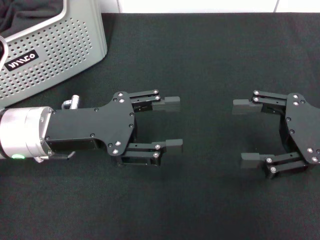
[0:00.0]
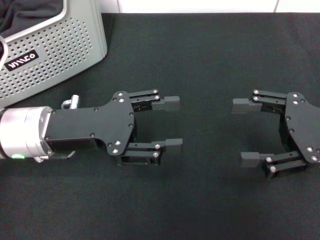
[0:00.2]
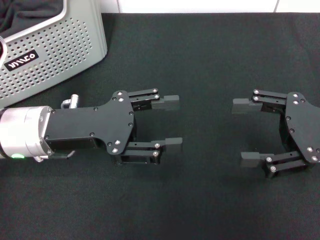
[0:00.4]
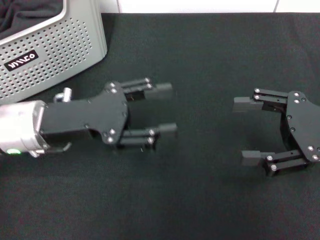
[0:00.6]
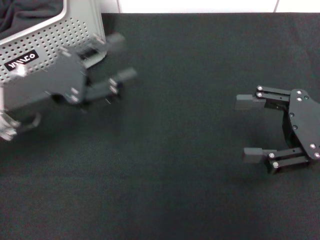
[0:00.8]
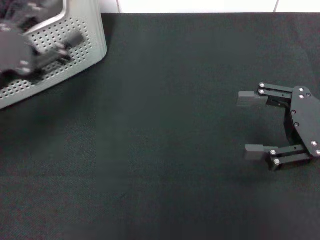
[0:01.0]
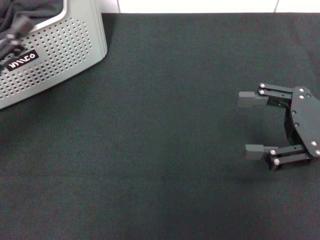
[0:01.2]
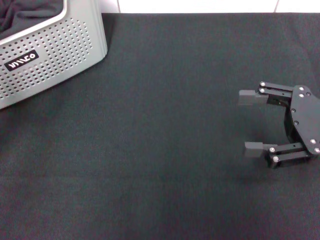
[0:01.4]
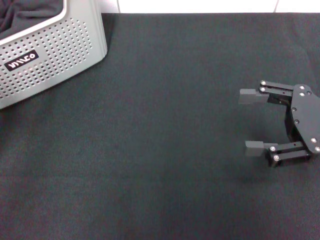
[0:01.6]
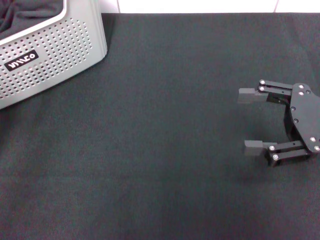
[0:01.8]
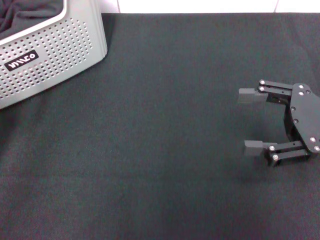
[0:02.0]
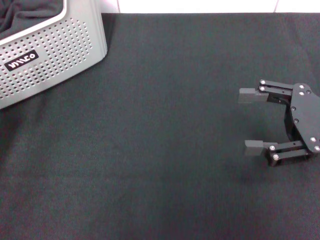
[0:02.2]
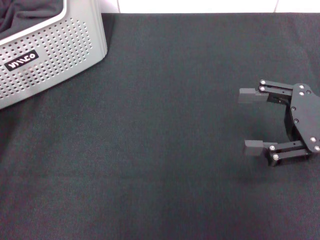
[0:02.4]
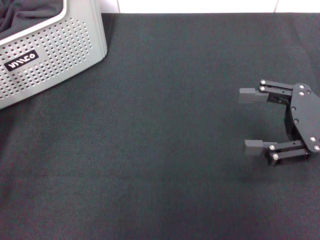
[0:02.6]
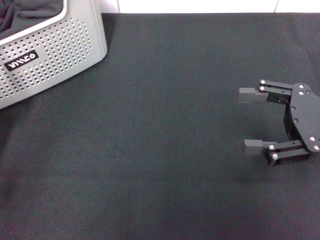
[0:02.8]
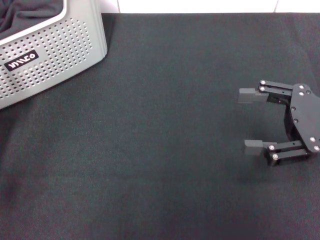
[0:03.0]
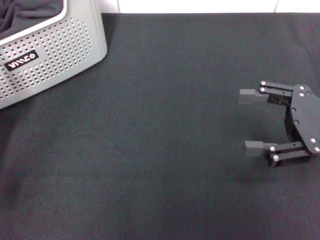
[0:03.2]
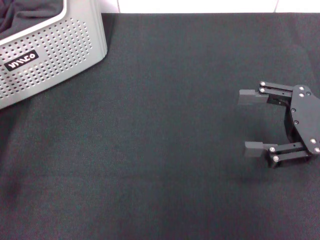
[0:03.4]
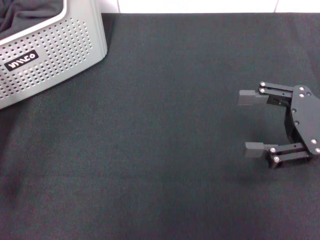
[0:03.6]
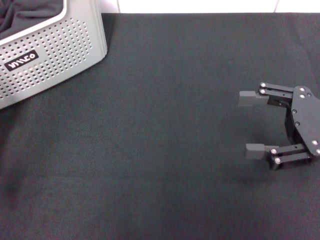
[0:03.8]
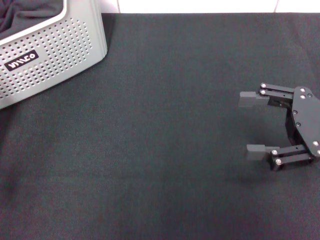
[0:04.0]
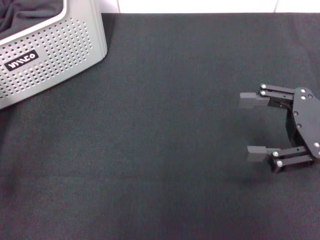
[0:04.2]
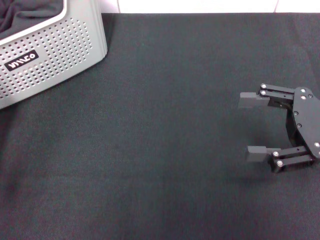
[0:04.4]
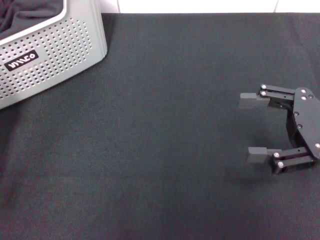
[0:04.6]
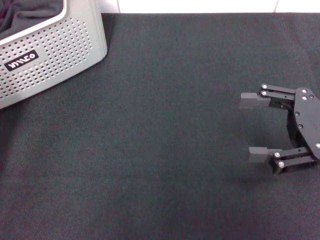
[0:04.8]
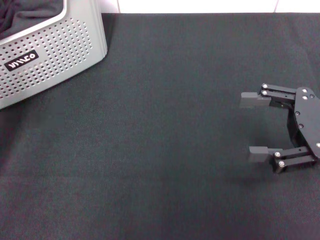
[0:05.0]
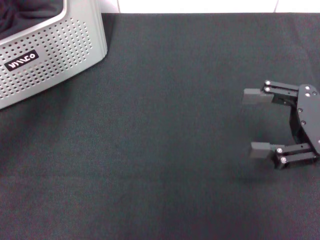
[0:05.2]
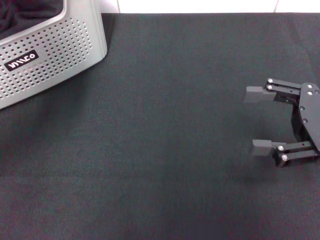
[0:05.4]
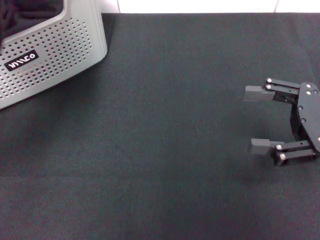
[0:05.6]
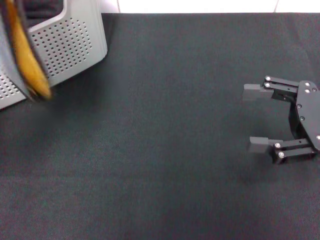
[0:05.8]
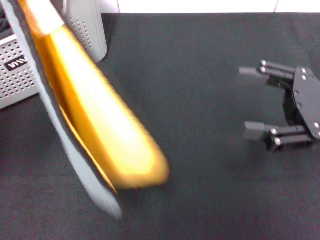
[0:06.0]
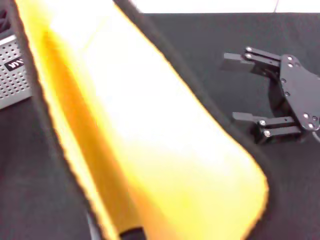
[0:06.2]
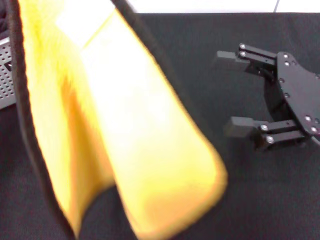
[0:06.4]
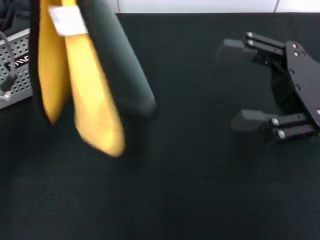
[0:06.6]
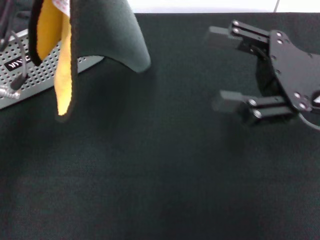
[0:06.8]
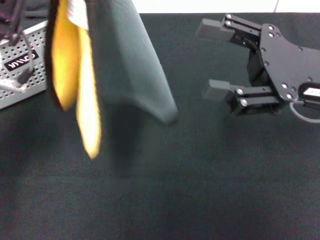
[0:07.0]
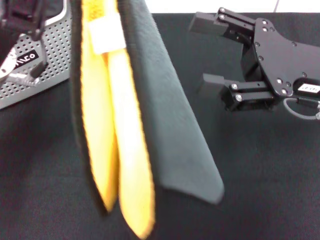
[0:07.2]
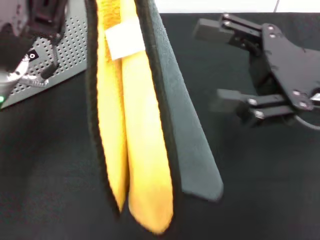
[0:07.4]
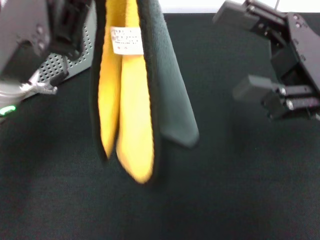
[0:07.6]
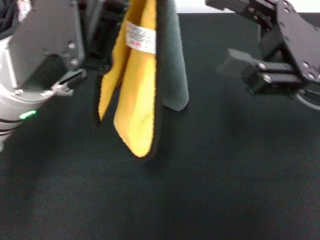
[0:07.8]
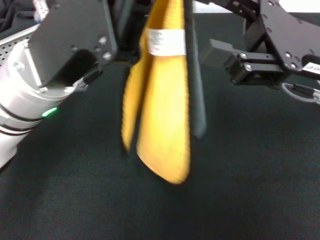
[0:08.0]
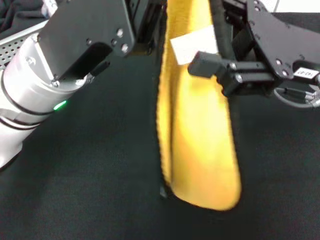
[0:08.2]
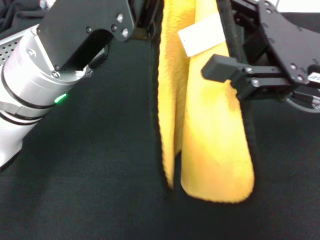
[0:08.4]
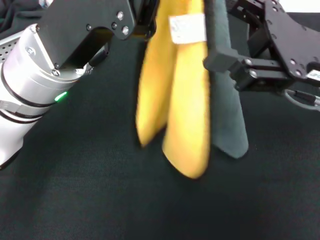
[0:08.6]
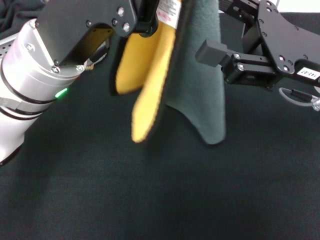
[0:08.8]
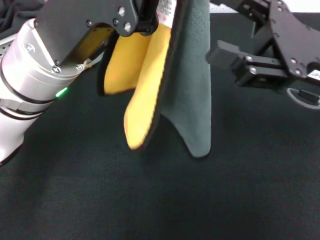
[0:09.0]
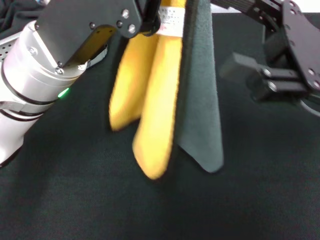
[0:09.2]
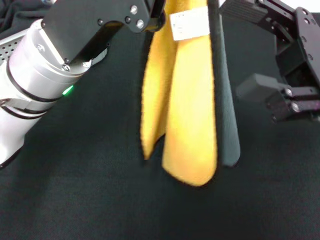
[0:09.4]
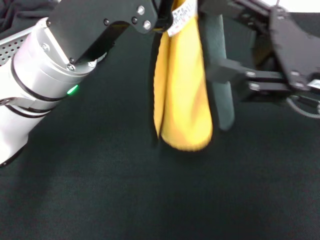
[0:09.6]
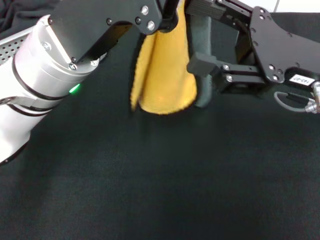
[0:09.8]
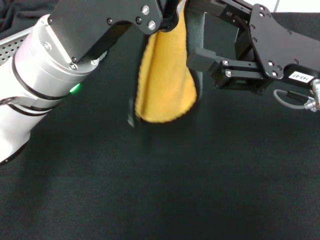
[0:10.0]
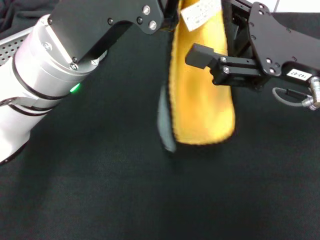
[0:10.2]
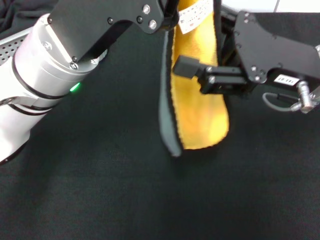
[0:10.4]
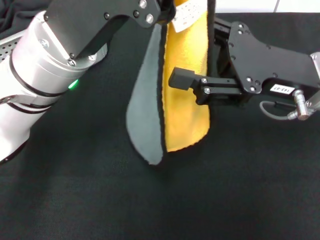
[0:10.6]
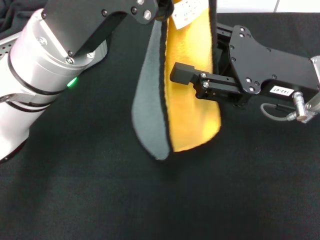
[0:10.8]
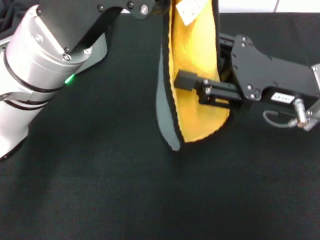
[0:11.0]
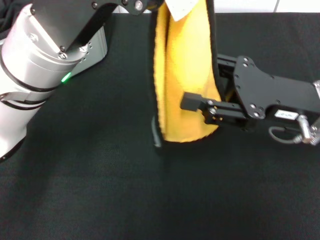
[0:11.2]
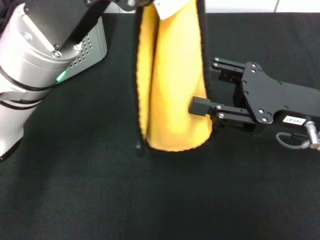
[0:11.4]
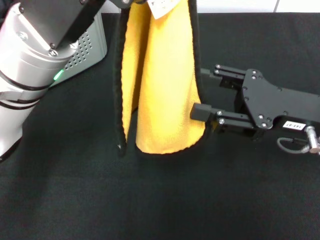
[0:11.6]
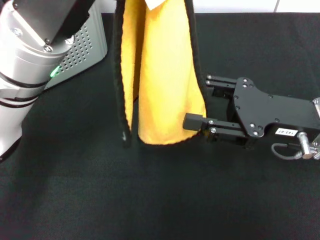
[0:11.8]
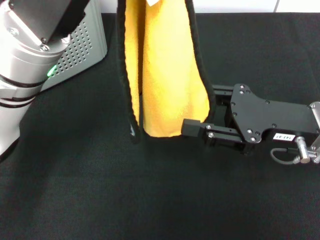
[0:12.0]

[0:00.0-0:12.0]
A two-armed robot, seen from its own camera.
Task of the whole recording: pick up the towel from the storage box and lay it flat on the black tablecloth.
Step, 0:00.0 to 0:04.4: Pick up a towel with the left gripper.
0:00.0 to 0:01.6: The left gripper is displaced to the left and backward by approximately 15 cm.
0:03.0 to 0:04.4: The left gripper closes.
0:04.4 to 0:06.0: The left gripper moves upward, some 15 cm.
0:06.0 to 0:07.6: The left gripper shifts approximately 5 cm to the right; the right gripper travels to the left by roughly 5 cm.
0:10.4 to 0:12.0: The right gripper moves downward, about 5 cm.

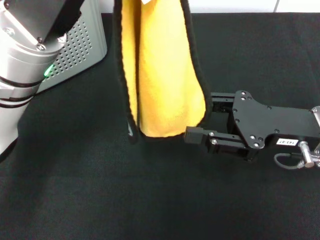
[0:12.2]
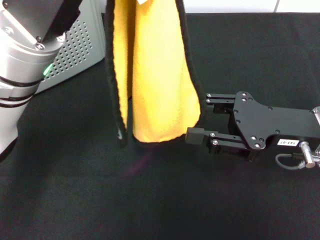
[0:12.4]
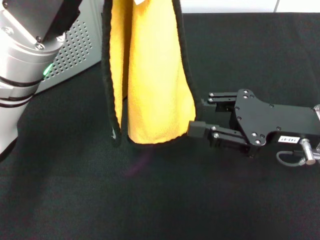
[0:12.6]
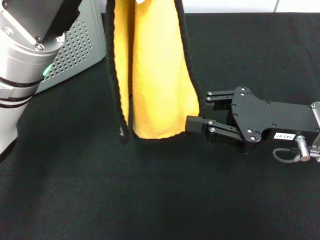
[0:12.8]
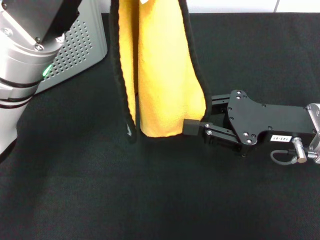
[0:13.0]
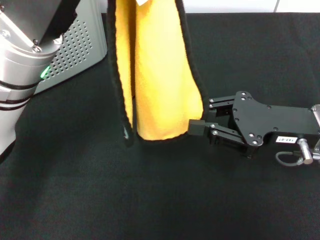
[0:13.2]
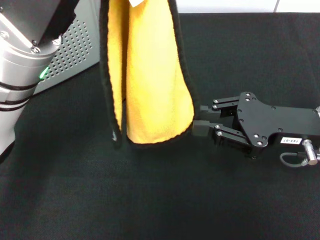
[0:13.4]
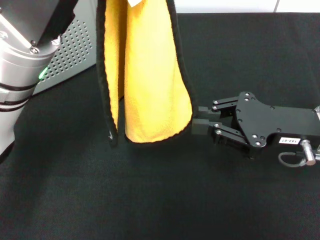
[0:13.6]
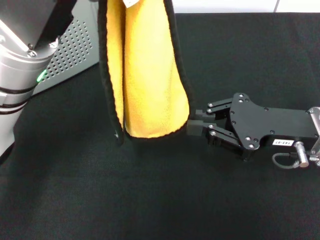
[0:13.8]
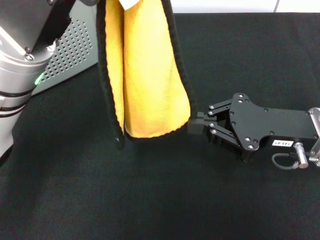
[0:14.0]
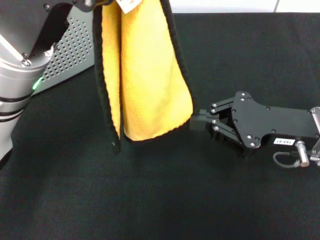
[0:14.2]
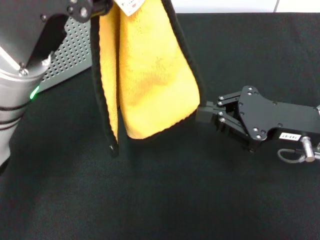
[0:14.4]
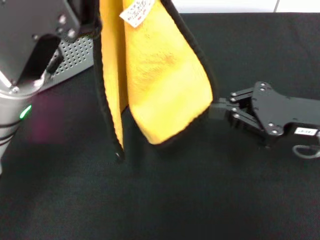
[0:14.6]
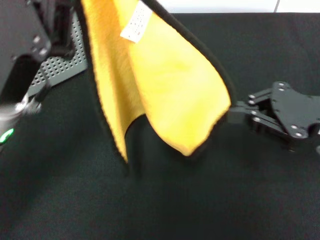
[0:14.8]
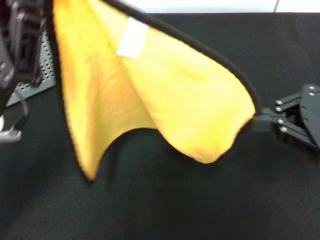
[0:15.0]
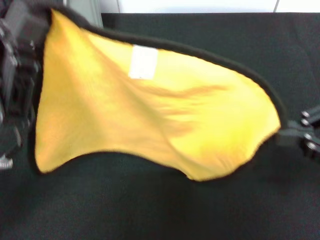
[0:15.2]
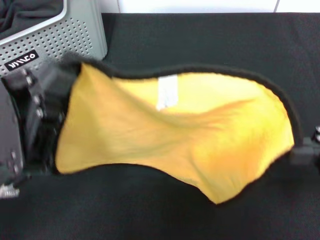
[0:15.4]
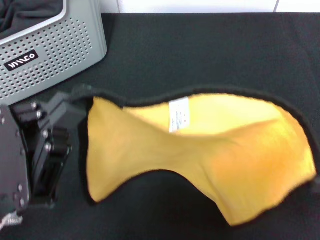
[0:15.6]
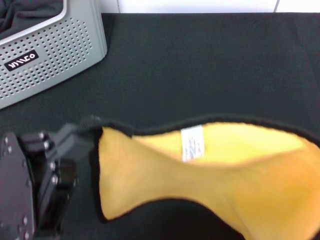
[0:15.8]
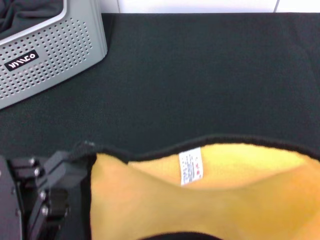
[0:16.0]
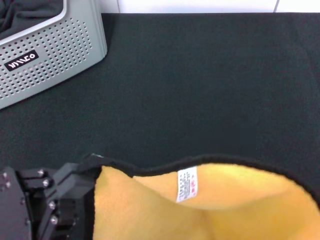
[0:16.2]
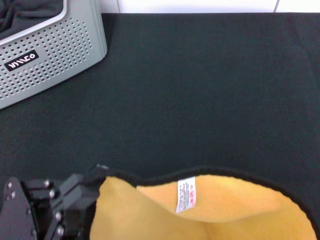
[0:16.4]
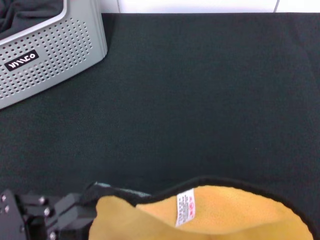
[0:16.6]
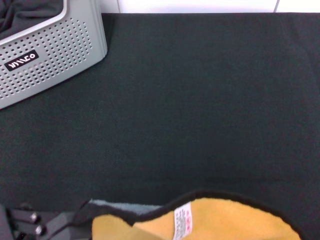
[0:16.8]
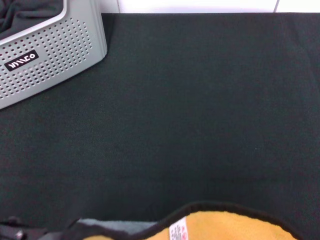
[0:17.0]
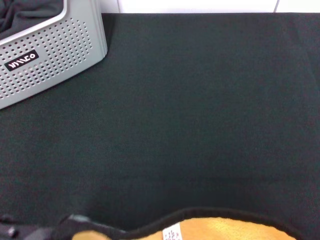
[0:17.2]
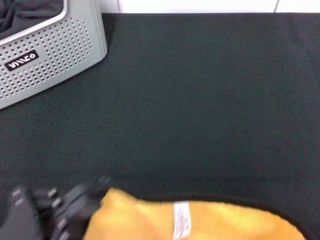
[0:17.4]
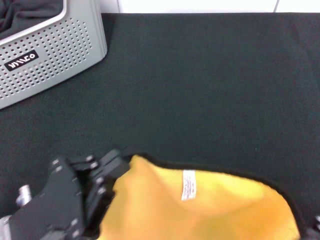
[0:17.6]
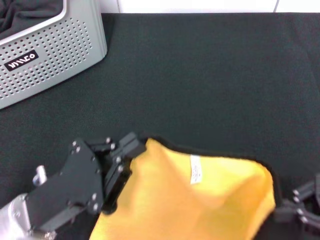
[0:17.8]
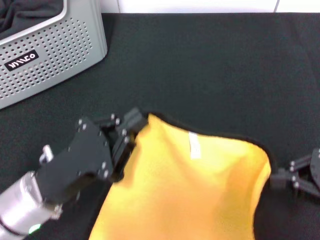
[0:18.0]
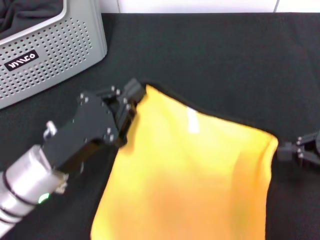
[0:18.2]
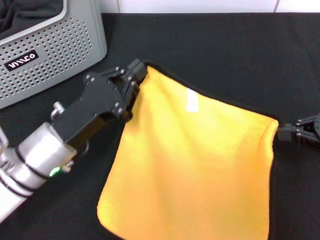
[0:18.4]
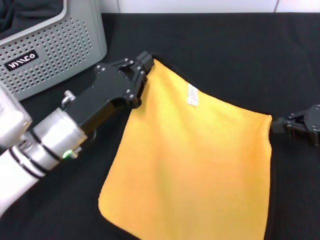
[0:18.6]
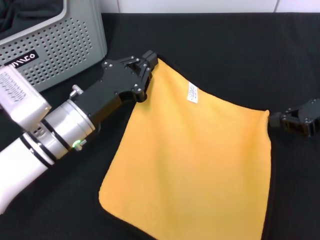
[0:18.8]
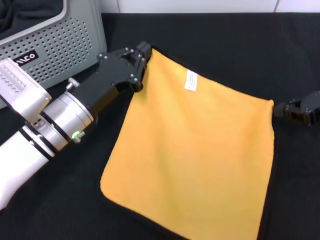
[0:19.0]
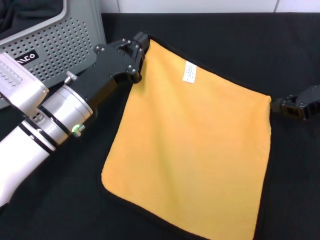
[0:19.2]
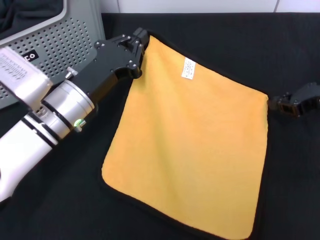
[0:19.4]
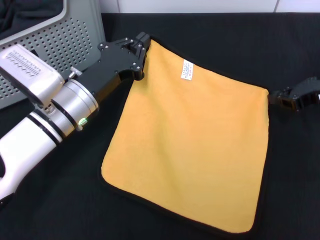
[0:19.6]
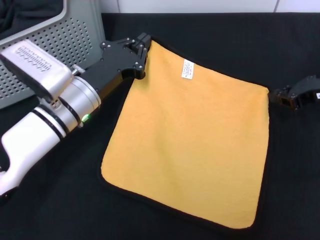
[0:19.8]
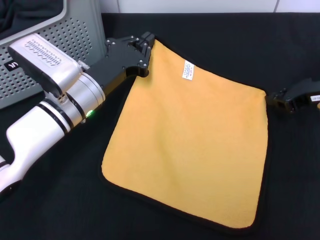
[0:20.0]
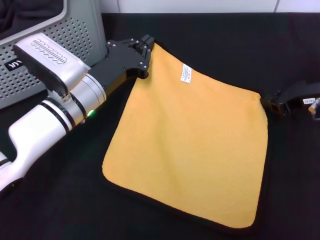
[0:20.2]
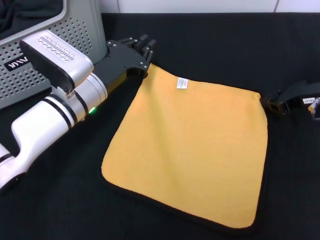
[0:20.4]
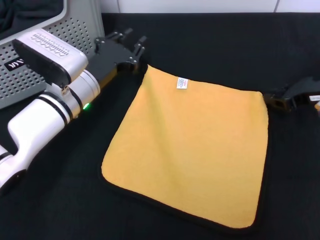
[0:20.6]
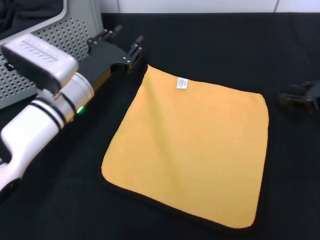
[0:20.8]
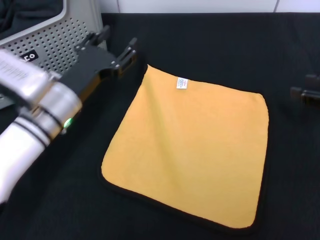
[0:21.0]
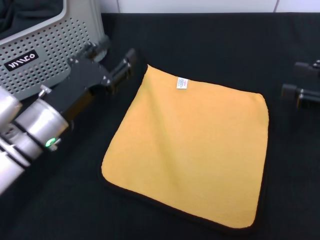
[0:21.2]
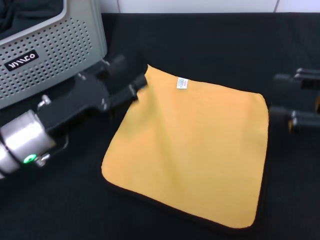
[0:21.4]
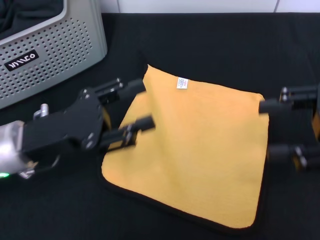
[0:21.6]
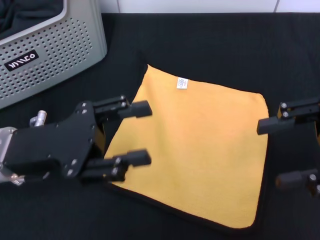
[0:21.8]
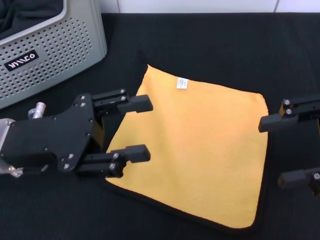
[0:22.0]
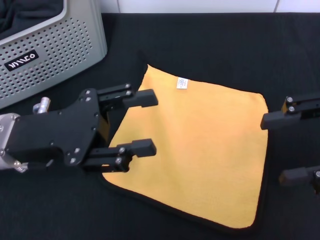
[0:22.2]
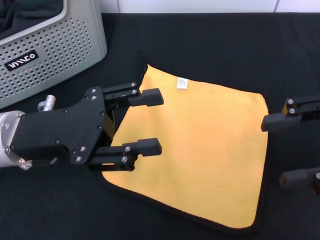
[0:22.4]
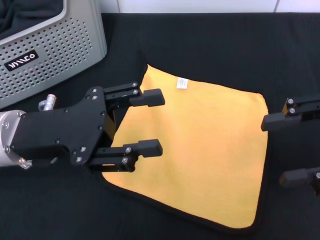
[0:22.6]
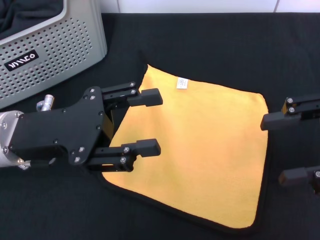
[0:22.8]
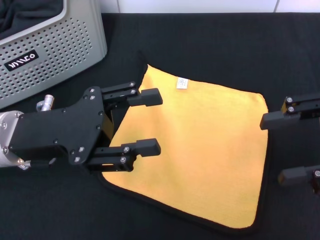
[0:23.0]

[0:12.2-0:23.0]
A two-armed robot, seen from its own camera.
Task of the whole recording: pick up the towel from the storage box and lay it flat on the black tablecloth.
Step, 0:12.2 to 0:14.2: Spread the towel flat with the left gripper.
Step, 0:14.4 to 0:20.6: Spread the towel flat with the right gripper.
0:12.2 to 0:13.8: The right gripper closes its fingers.
0:13.8 to 0:15.2: The right gripper shifts roughly 15 cm to the right, upward and backward. The left gripper goes roughly 15 cm backward, to the left and downward.
0:15.2 to 0:16.8: Both grippers move backward, approximately 10 cm.
0:16.8 to 0:18.4: The right gripper moves forward and downward, about 15 cm, while the left gripper travels forward by approximately 15 cm.
0:18.4 to 0:20.0: Both grippers move forward, approximately 10 cm.
0:20.0 to 0:21.4: The left gripper moves backward and to the left, some 10 cm, and opens; the right gripper goes roughly 10 cm backward and upward, and opens up.
0:21.4 to 0:23.0: The right gripper moves approximately 5 cm. The left gripper is displaced upward by some 5 cm.
